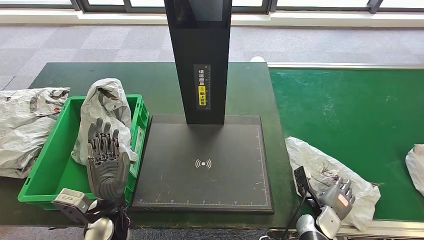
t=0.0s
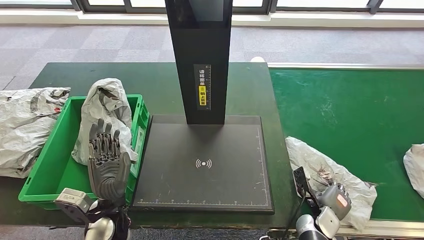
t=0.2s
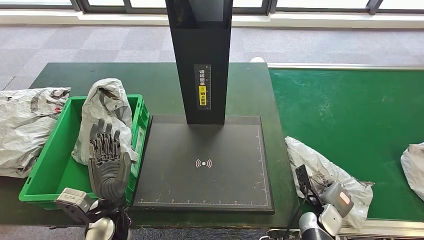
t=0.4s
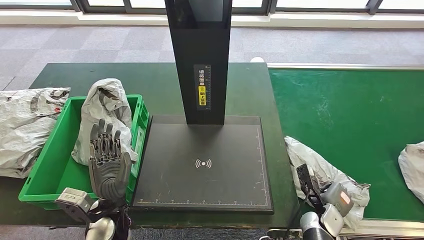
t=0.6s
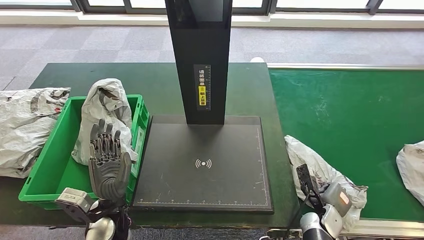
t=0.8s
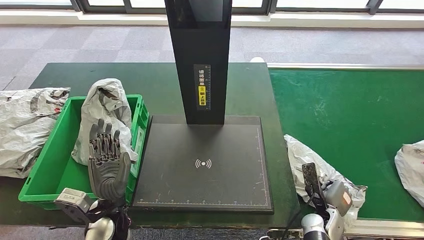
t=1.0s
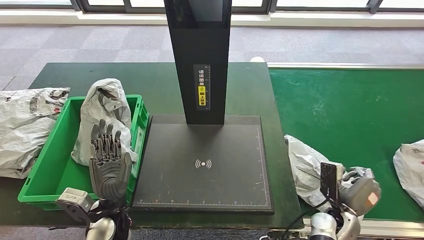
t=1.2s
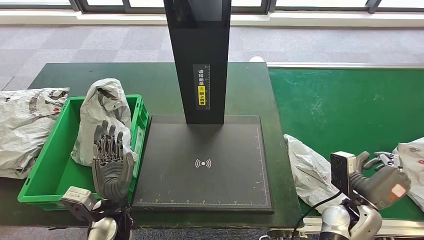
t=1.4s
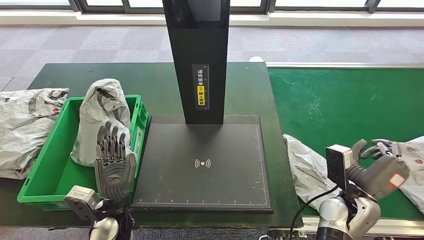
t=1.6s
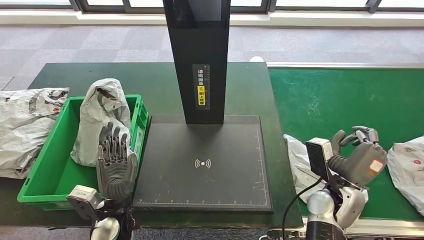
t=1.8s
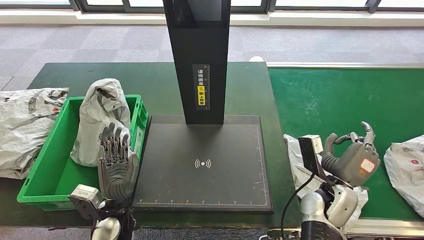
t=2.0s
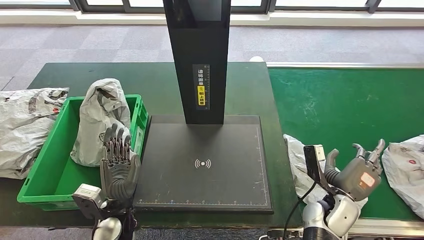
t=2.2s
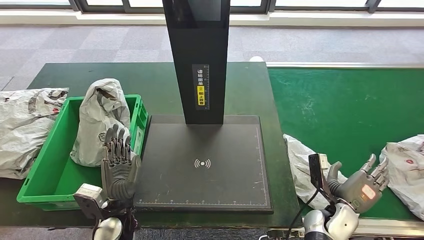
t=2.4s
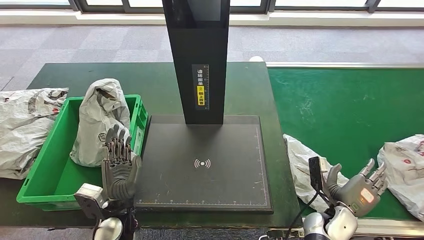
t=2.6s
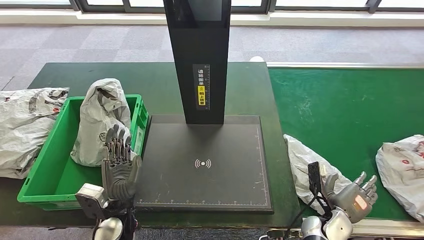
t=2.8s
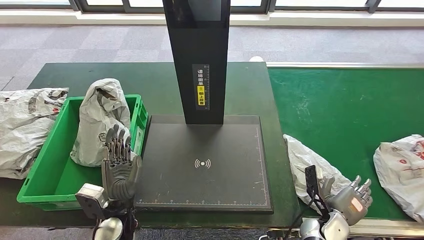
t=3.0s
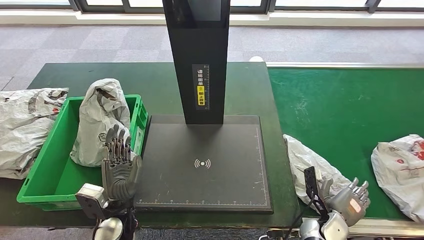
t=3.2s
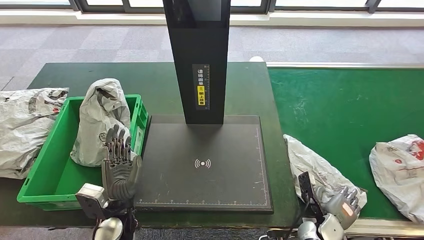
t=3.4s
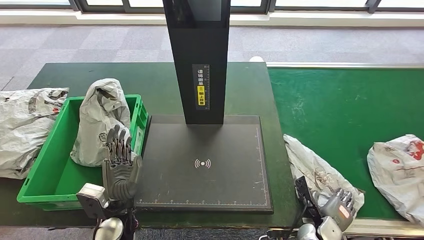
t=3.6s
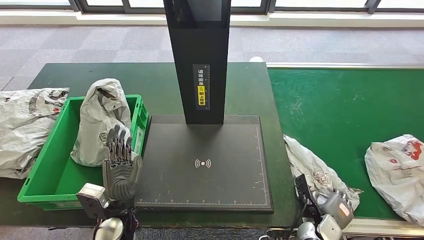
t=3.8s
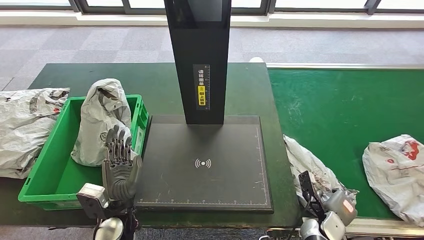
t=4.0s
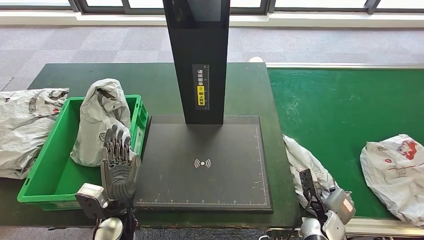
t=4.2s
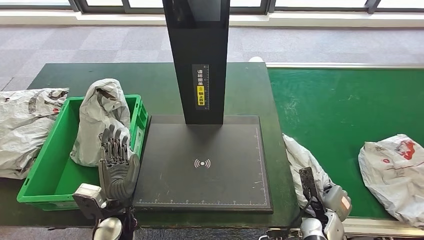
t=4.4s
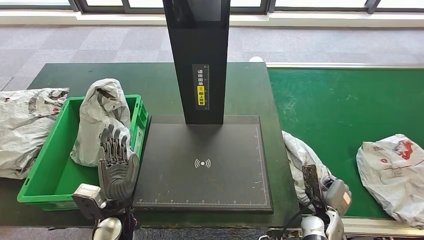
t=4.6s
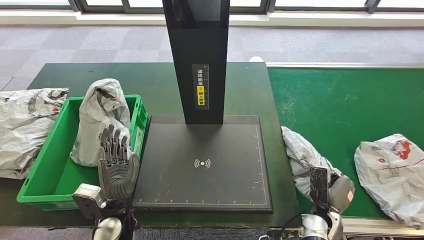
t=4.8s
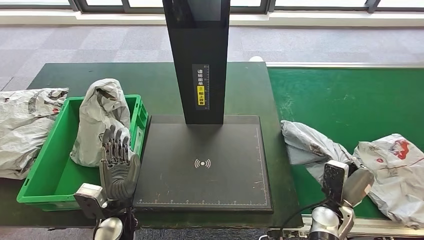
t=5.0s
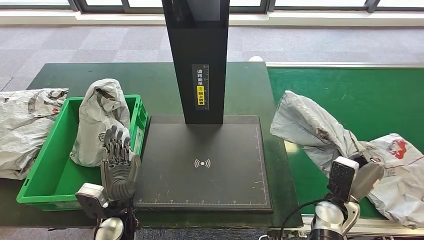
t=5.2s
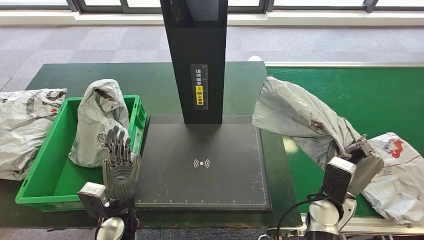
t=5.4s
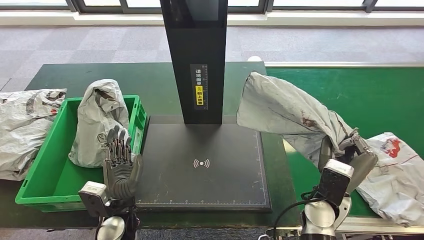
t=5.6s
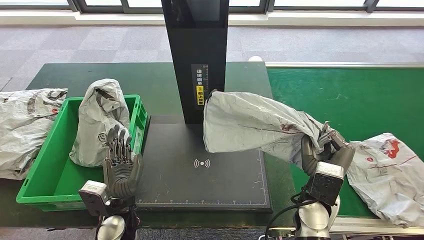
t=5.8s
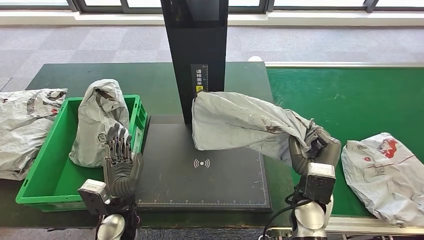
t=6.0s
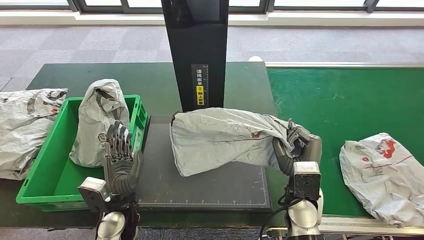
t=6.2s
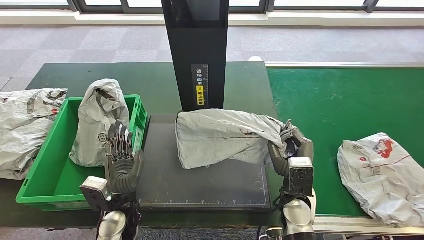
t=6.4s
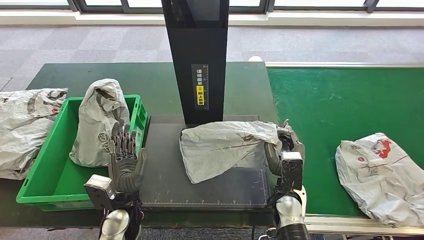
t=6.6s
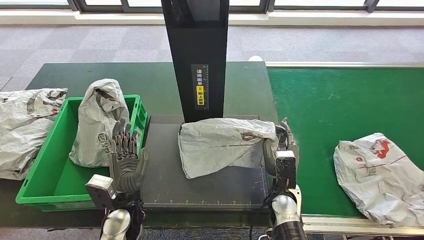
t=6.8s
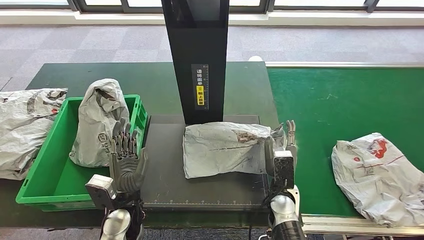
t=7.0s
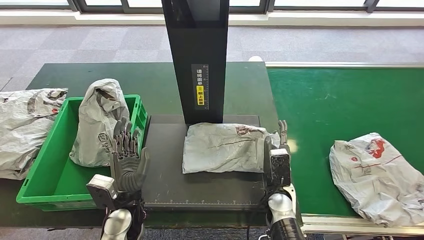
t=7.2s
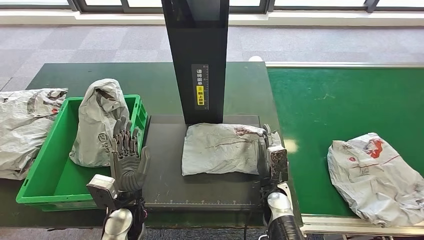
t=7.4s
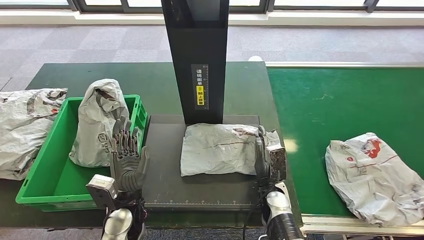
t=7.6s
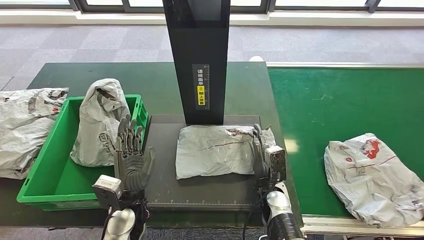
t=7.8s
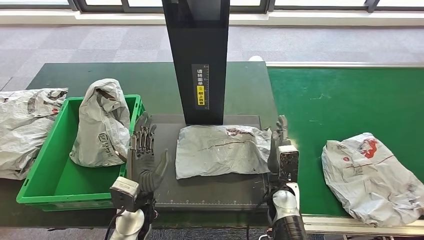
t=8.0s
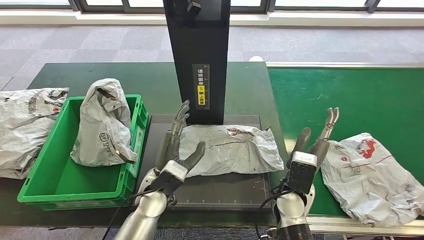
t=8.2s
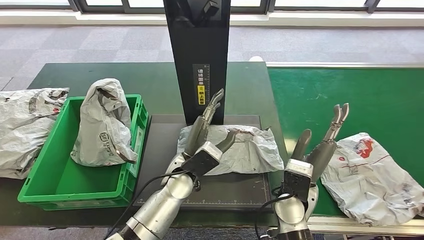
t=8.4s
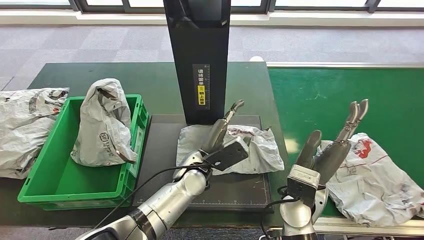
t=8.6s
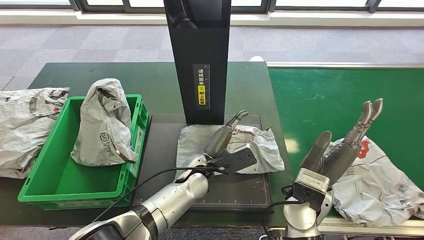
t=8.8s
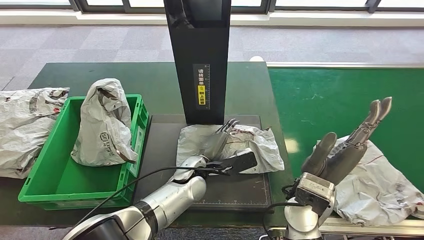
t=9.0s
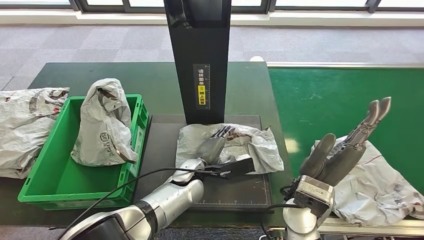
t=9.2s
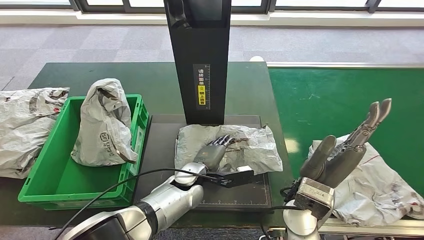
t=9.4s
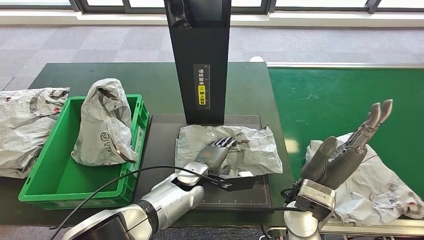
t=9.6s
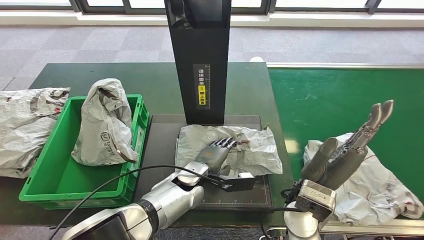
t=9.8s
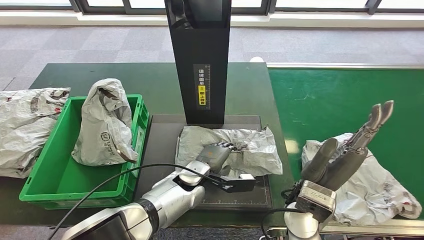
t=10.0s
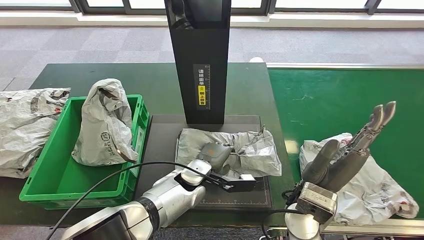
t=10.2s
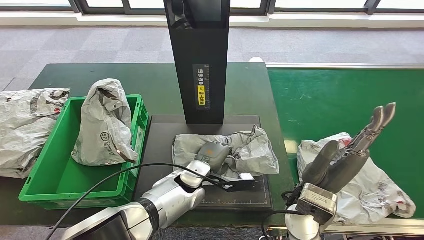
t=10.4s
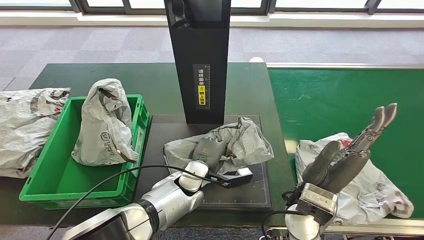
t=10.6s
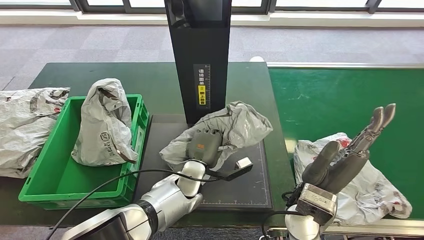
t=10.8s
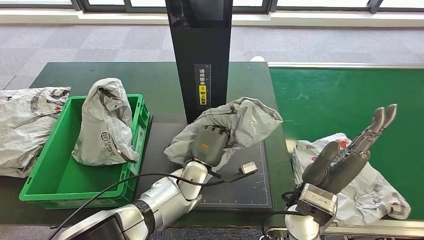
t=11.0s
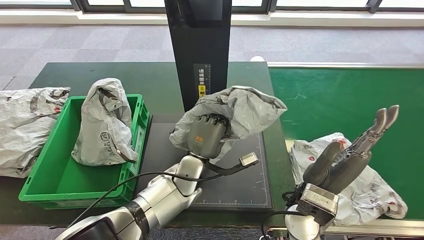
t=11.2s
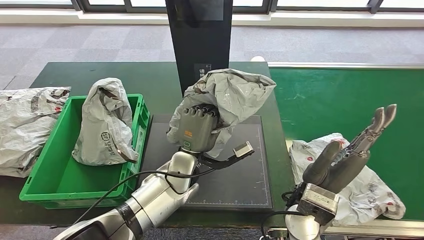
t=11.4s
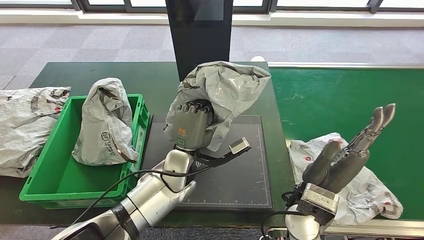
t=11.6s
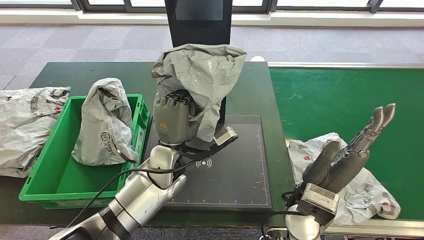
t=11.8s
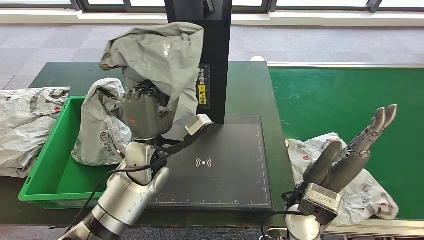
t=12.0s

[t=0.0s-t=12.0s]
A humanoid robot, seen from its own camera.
Step, t=0.0s to t=5.6s: Pick up the parcel from the conveyor belt.
Step, t=5.8s to t=9.2s: Place the parcel onto the inbound machine.
Step, t=9.4s to t=11.4s: Pick up the parcel from the inbound machine.
t=0.0s to t=1.6s: The right hand shifts roughly 10 cm upward.
t=1.6s to t=3.0s: The right hand is displaced downward by about 10 cm.
t=3.0s to t=4.4s: There are only small adjustments of the hands.

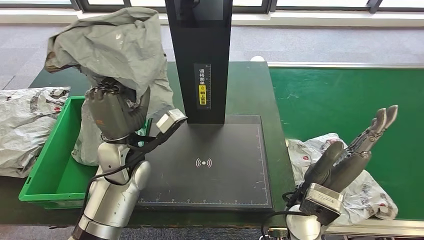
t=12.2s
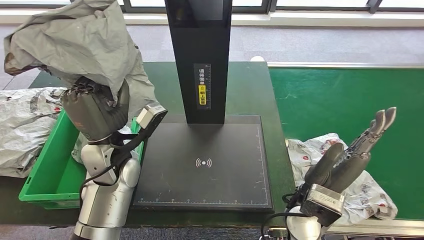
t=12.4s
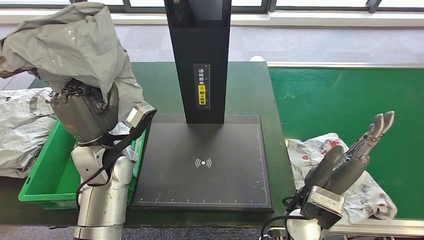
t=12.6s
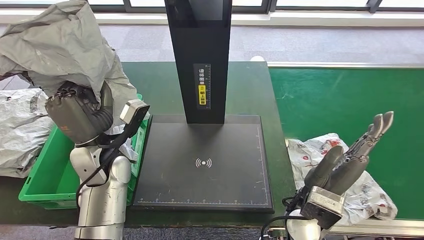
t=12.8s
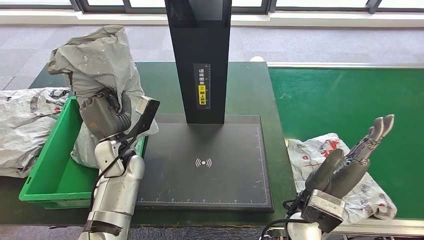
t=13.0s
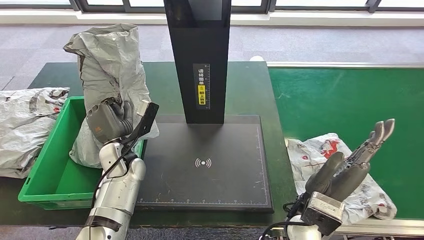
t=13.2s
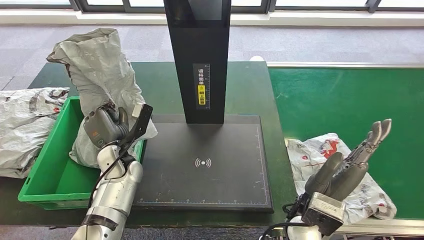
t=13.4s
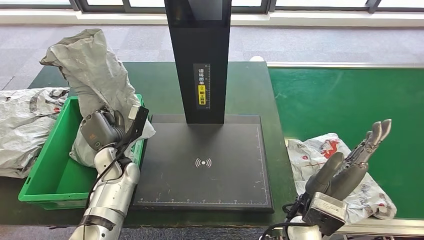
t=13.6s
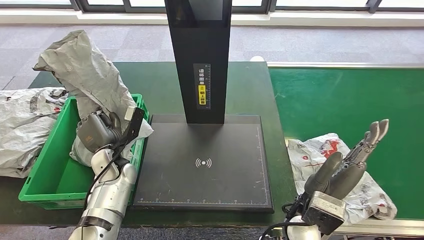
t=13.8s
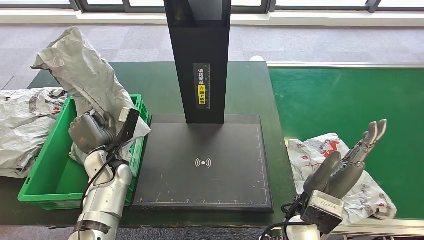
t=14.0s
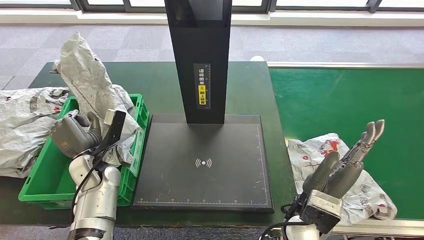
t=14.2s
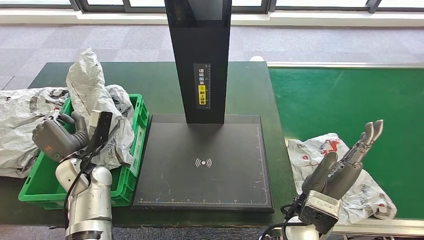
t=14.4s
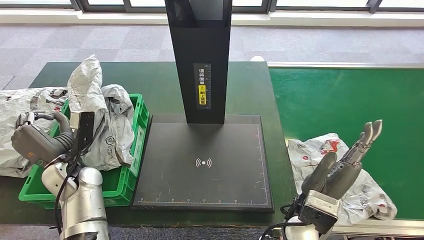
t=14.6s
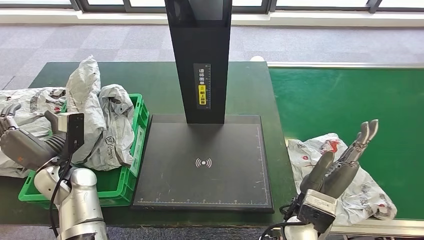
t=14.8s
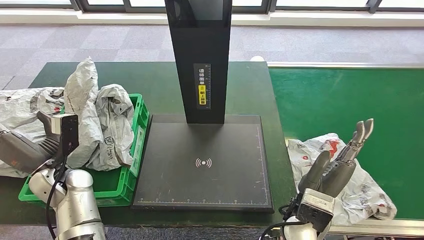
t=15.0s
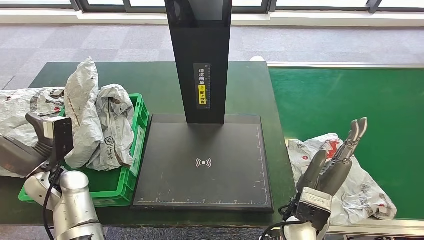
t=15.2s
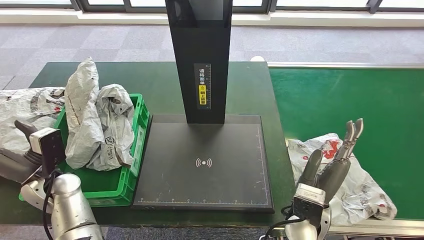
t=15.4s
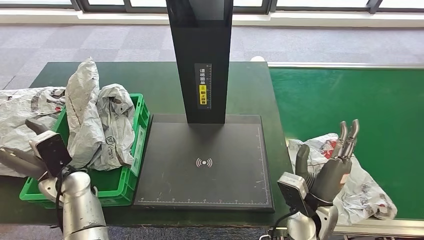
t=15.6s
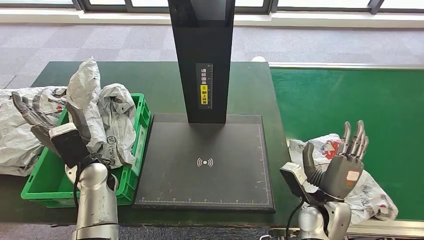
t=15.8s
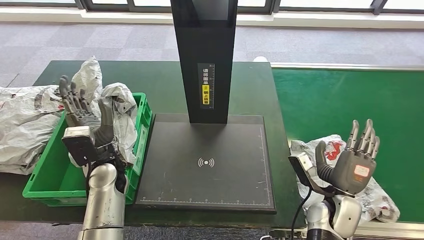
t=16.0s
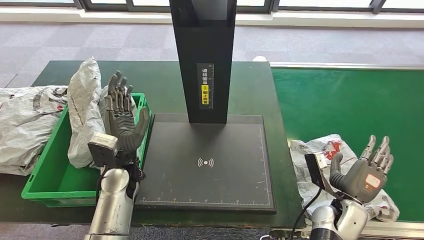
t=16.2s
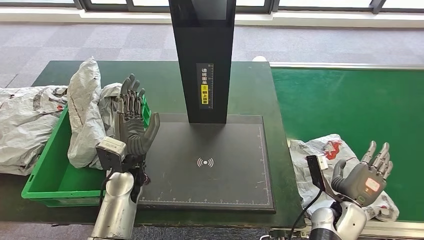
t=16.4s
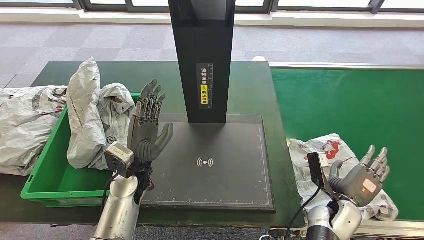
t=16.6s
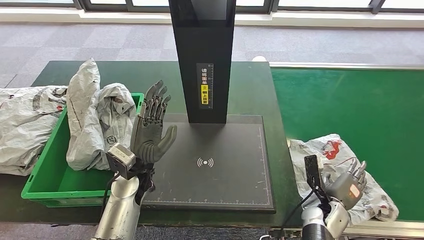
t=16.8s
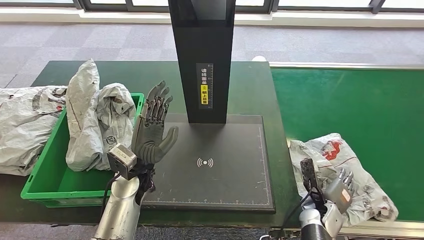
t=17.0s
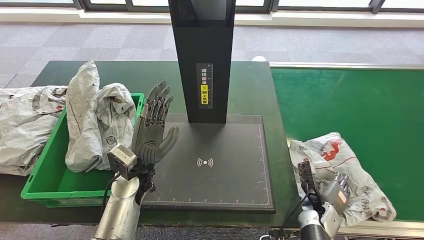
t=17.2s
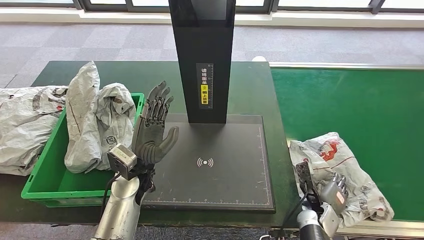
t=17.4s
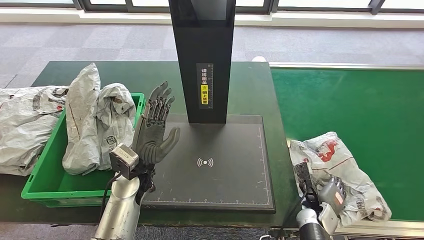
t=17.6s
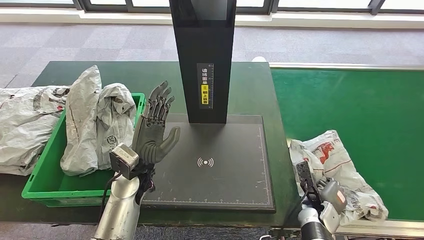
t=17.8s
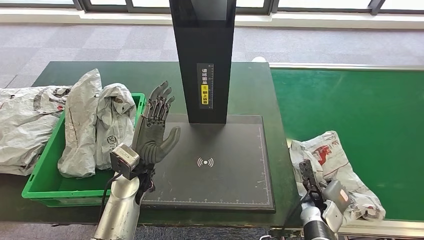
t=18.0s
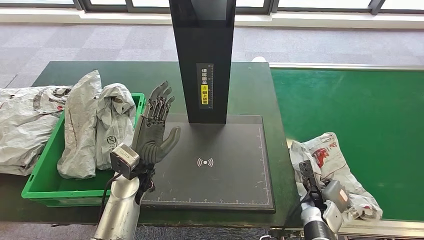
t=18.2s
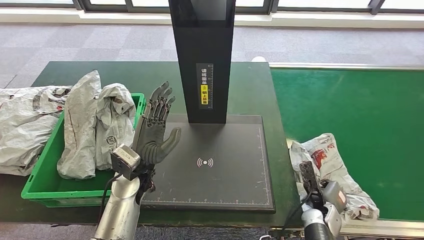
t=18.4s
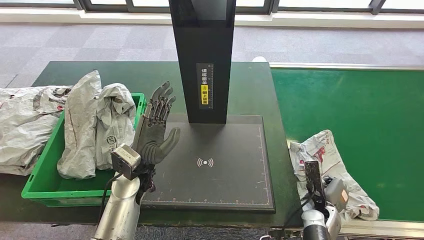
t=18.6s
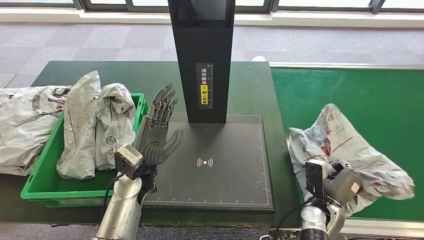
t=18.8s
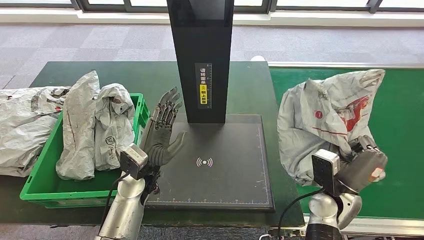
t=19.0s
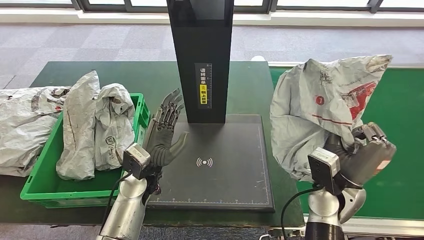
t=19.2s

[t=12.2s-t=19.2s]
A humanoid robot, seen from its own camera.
Step, t=12.2s to t=16.2s: Place the parcel into the delivery box.
t=16.4s to t=17.8s: The right hand goes about 10 cm downward.
